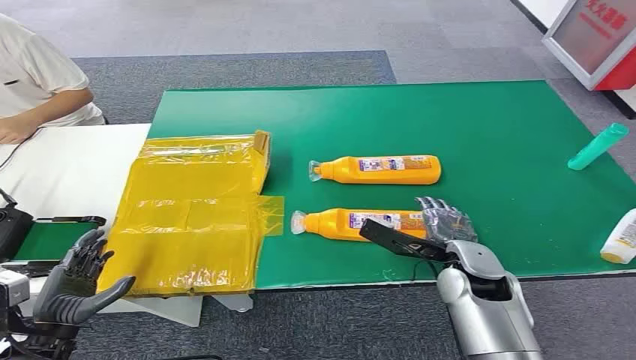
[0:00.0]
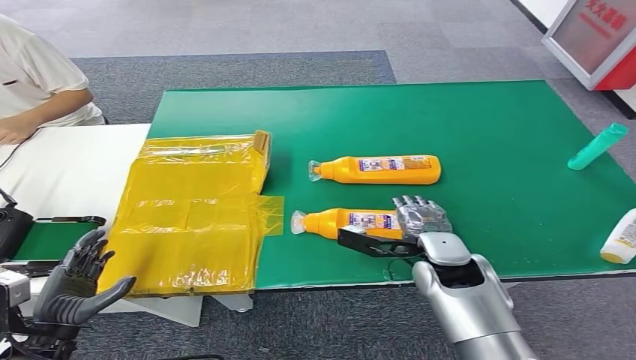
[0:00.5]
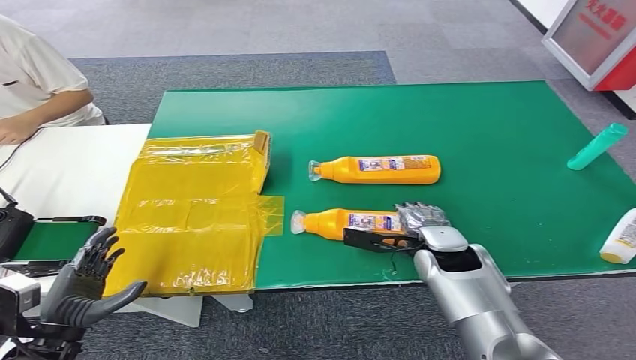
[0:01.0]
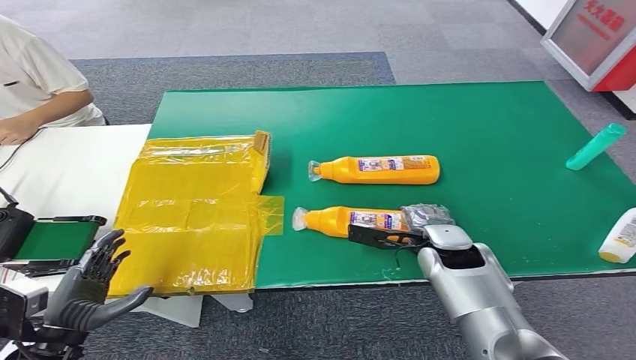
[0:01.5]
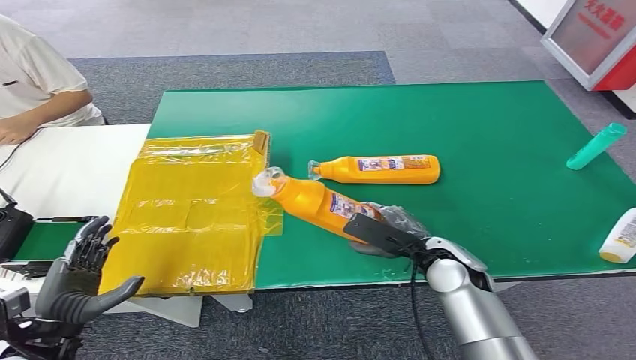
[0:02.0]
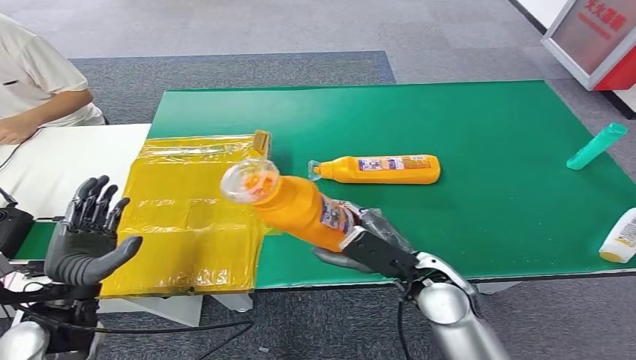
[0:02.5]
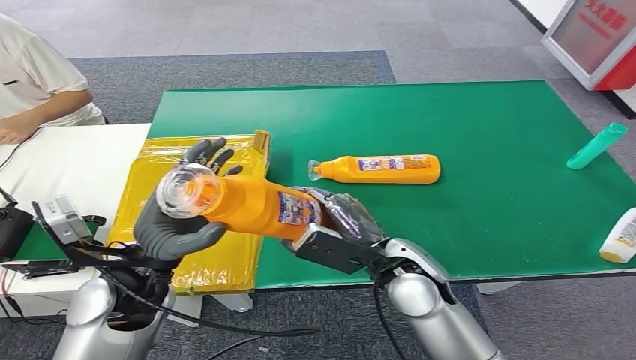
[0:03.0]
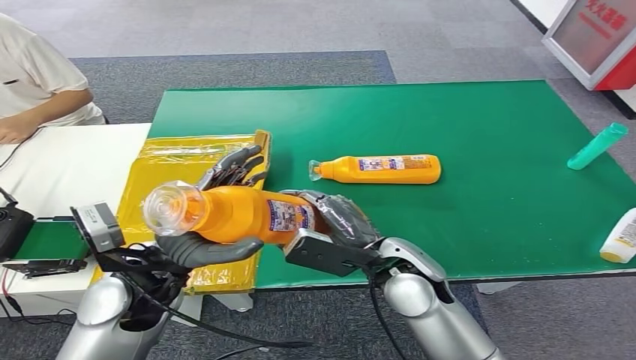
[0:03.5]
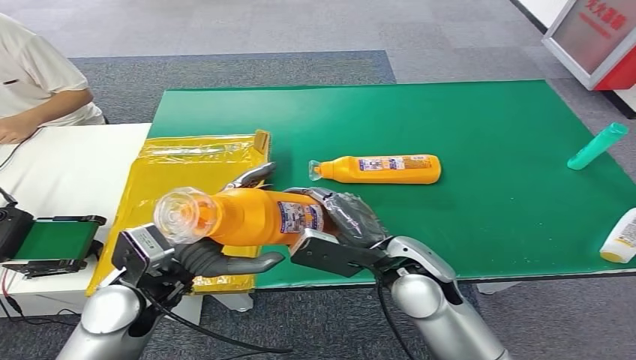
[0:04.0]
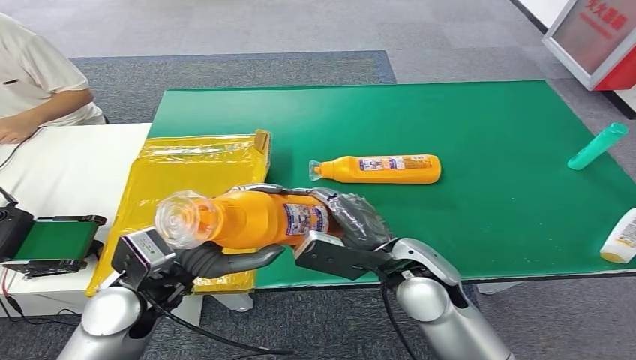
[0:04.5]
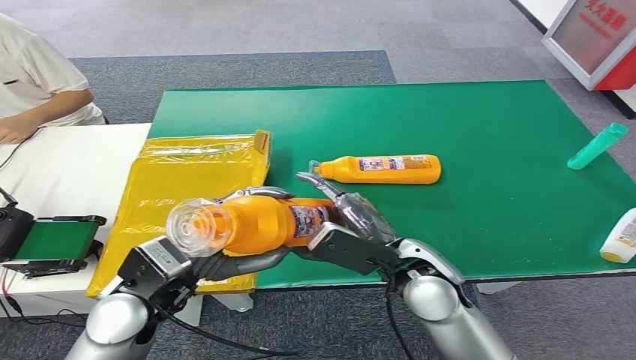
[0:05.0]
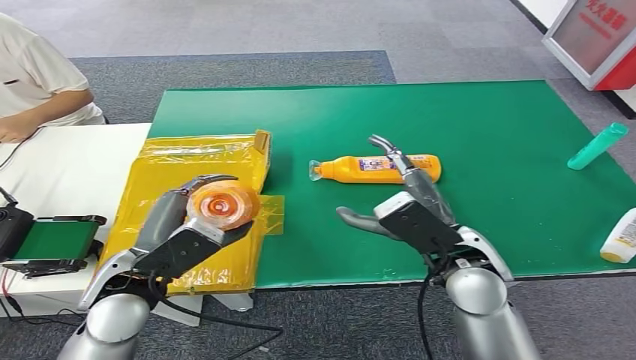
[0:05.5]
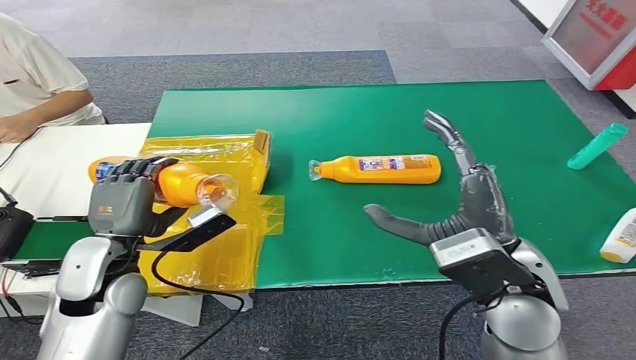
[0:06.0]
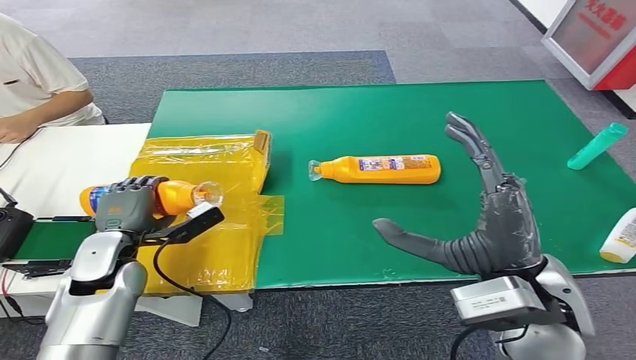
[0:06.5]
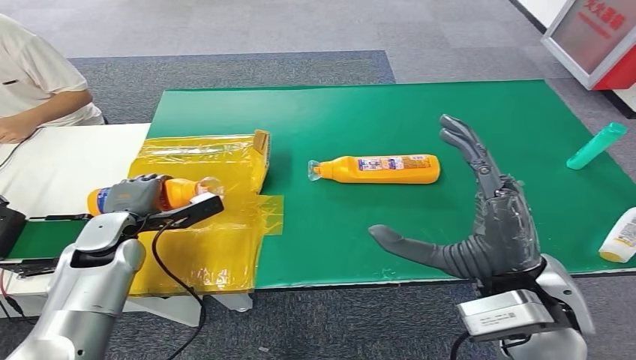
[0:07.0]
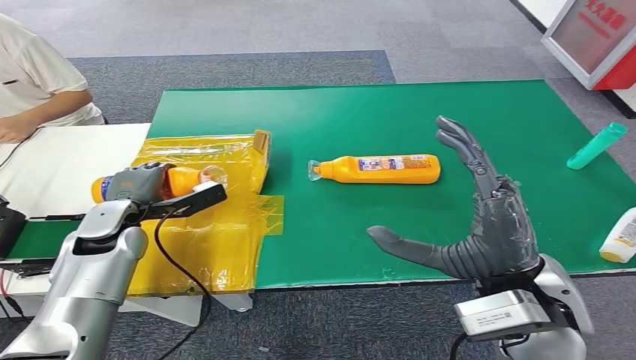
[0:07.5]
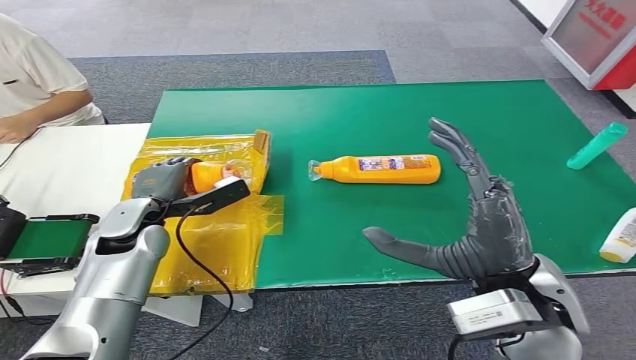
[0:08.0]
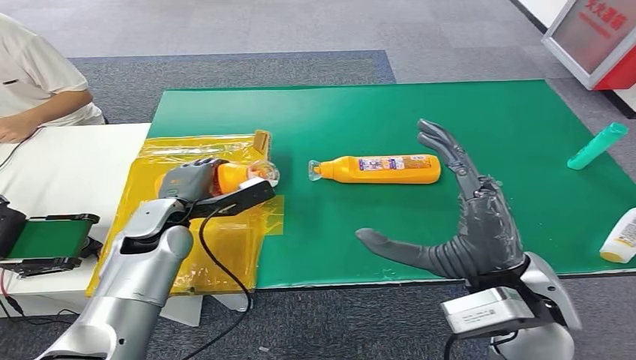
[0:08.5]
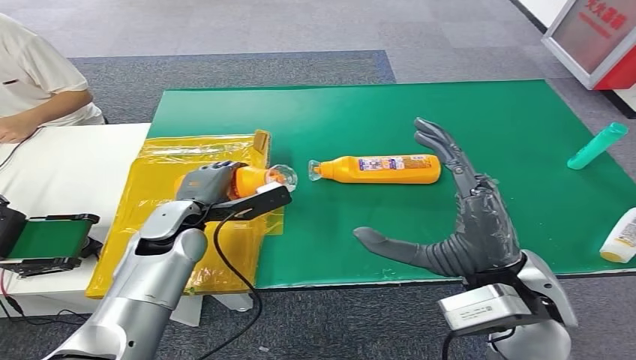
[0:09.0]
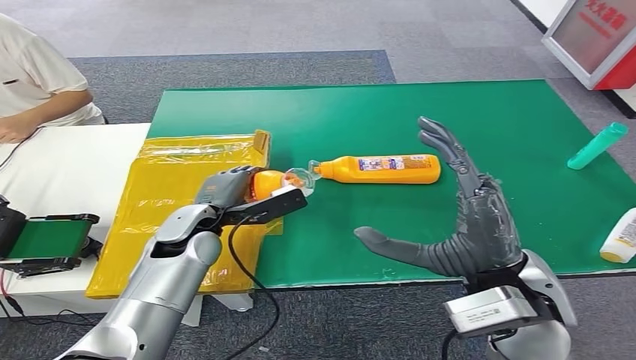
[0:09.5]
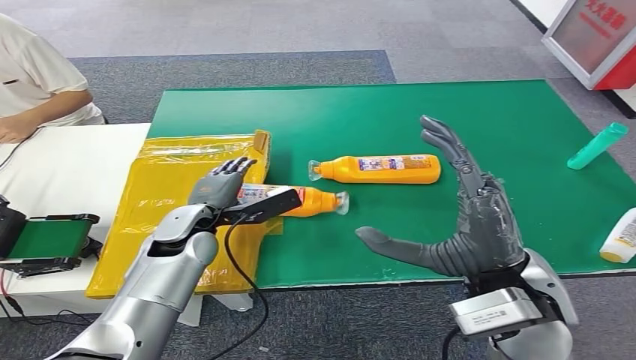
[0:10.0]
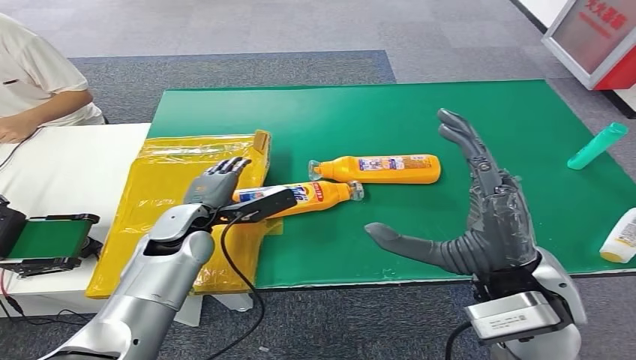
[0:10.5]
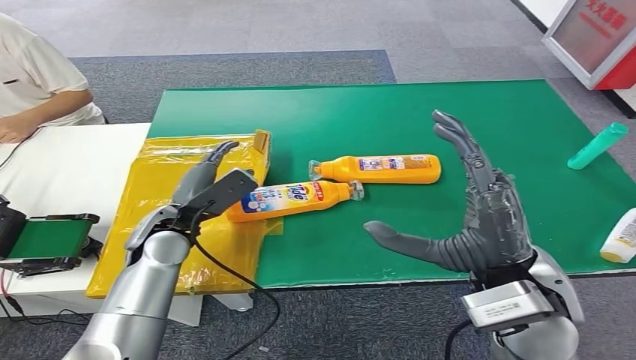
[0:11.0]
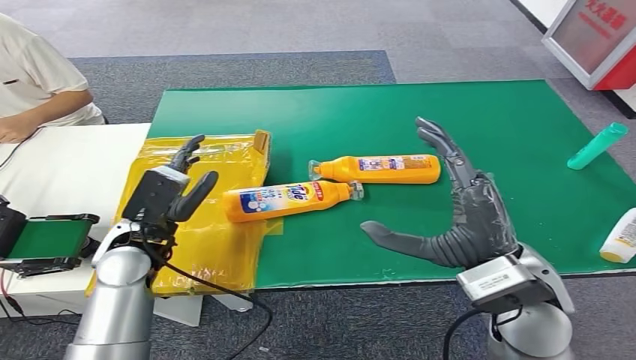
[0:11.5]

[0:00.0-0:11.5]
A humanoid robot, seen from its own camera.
Step, 0:00.0 to 0:02.0: Pick up the bottle from the table.
Step, 0:04.5 to 0:11.5: Turn the bottle to the front side.
0:02.0 to 0:04.0: The right hand goes approximately 10 cm upward and to the left, while the left hand shifts some 20 cm to the right, upward and forward.
0:06.0 to 0:07.5: The left hand is displaced forward by some 10 cm.
0:07.5 to 0:09.5: The left hand goes roughly 10 cm to the right.
0:09.5 to 0:11.5: The left hand is displaced to the left by approximately 5 cm.
